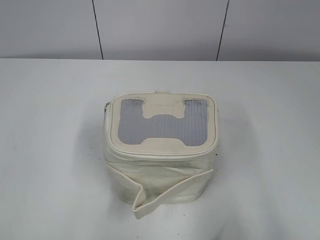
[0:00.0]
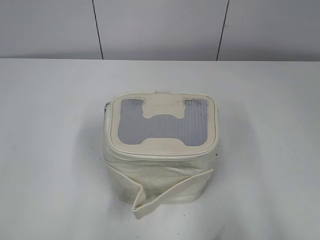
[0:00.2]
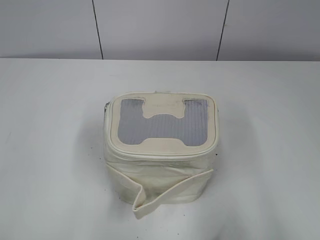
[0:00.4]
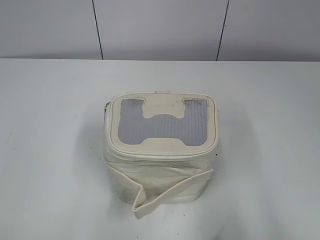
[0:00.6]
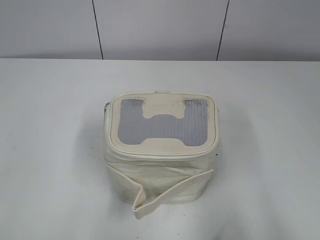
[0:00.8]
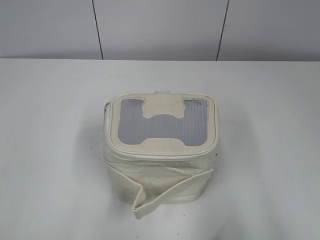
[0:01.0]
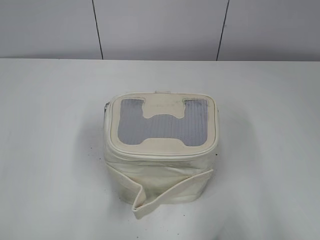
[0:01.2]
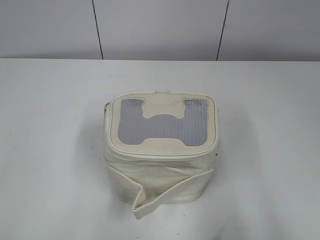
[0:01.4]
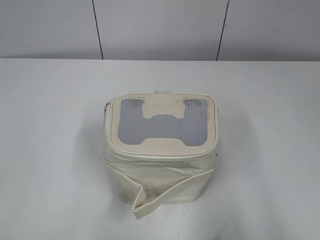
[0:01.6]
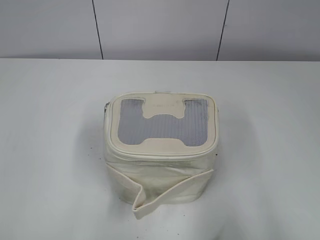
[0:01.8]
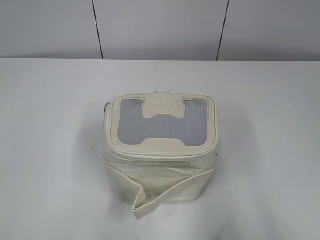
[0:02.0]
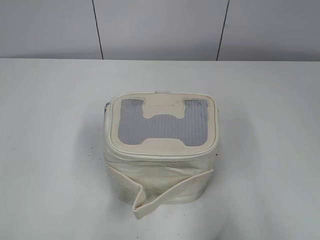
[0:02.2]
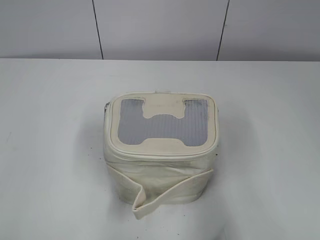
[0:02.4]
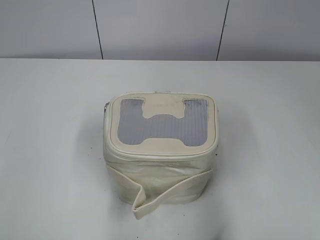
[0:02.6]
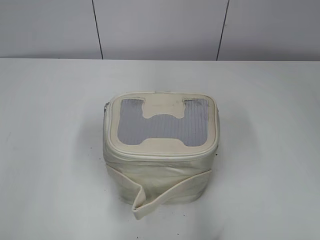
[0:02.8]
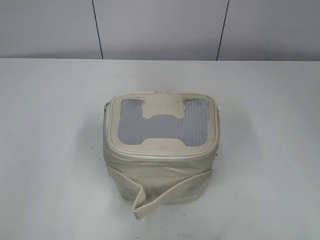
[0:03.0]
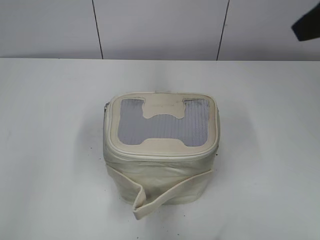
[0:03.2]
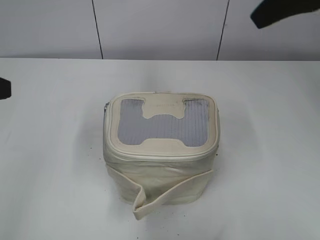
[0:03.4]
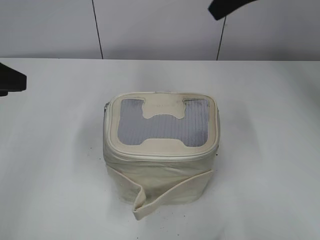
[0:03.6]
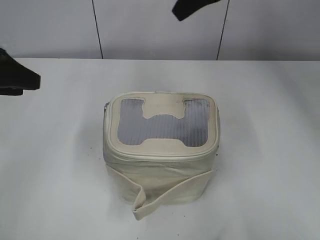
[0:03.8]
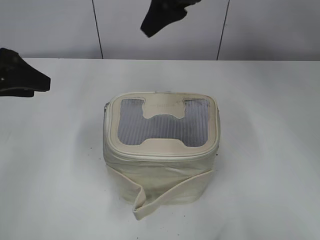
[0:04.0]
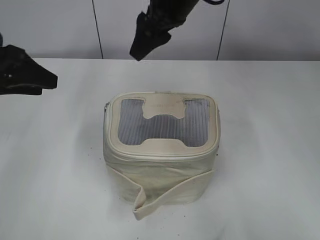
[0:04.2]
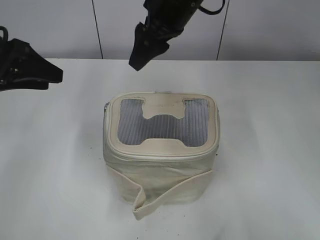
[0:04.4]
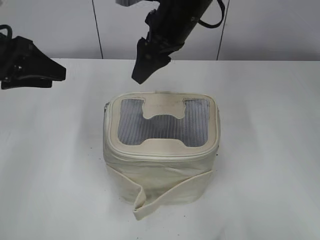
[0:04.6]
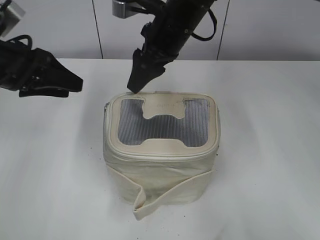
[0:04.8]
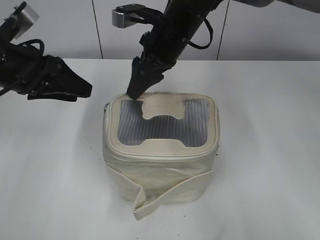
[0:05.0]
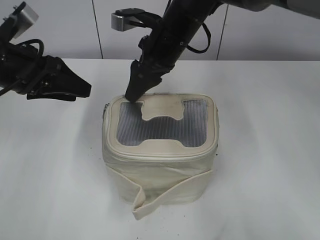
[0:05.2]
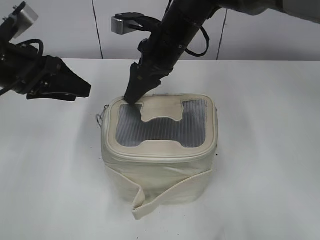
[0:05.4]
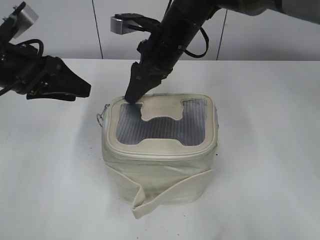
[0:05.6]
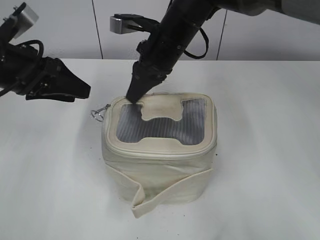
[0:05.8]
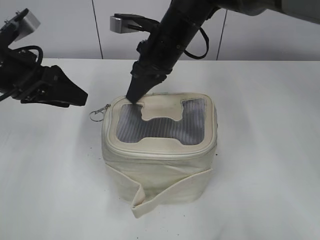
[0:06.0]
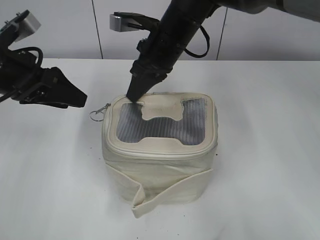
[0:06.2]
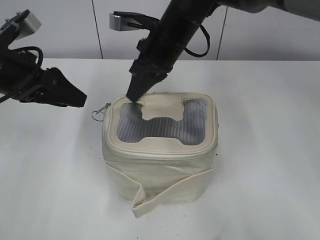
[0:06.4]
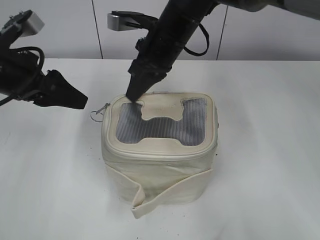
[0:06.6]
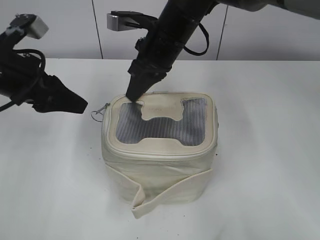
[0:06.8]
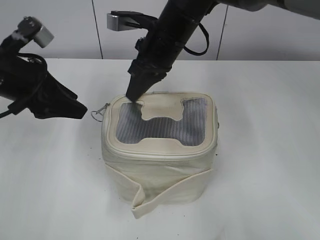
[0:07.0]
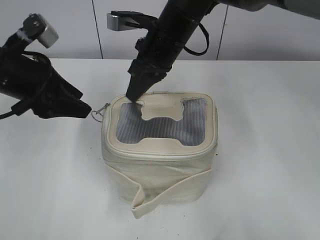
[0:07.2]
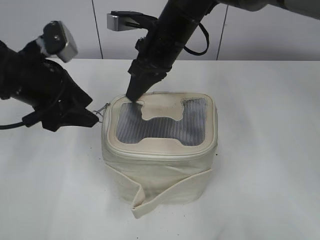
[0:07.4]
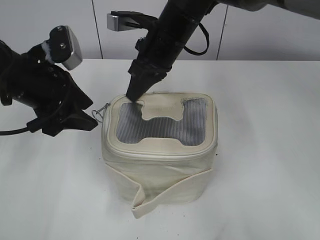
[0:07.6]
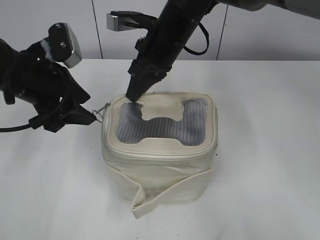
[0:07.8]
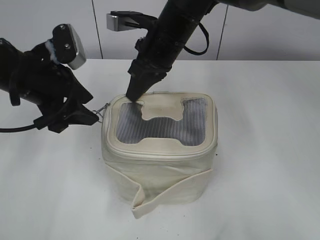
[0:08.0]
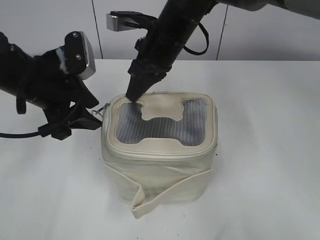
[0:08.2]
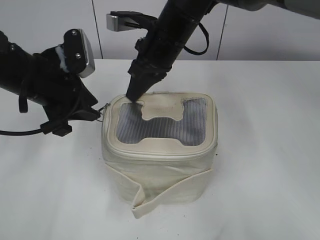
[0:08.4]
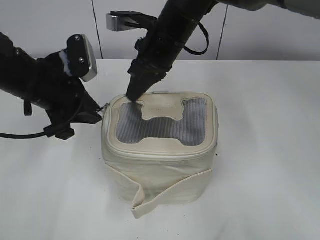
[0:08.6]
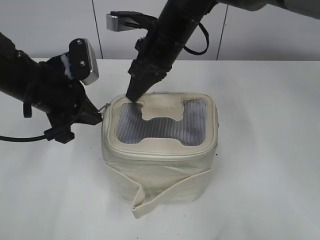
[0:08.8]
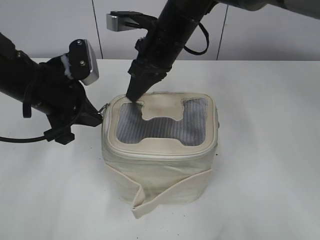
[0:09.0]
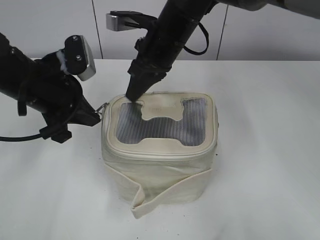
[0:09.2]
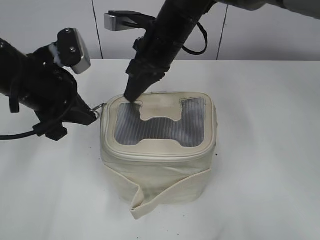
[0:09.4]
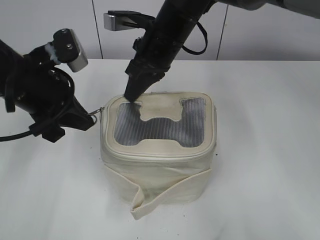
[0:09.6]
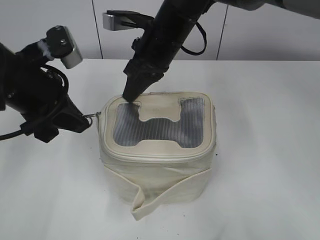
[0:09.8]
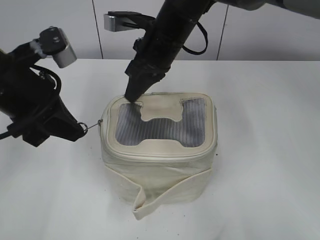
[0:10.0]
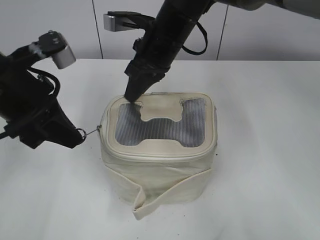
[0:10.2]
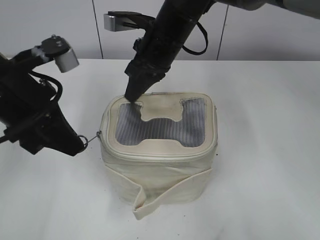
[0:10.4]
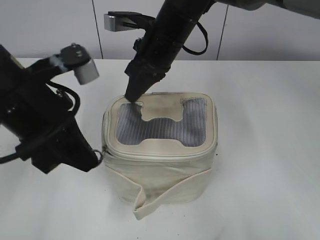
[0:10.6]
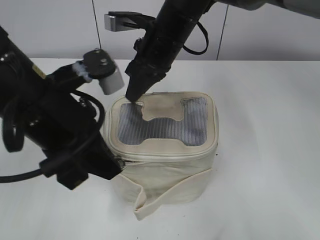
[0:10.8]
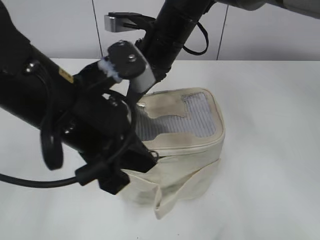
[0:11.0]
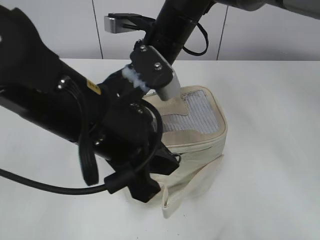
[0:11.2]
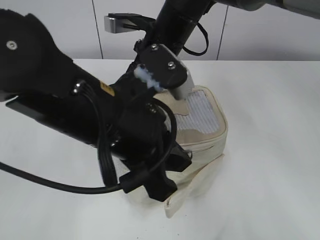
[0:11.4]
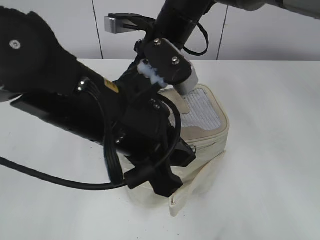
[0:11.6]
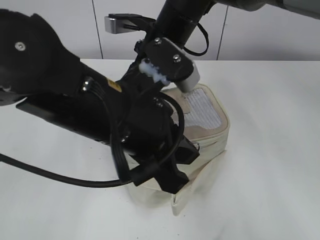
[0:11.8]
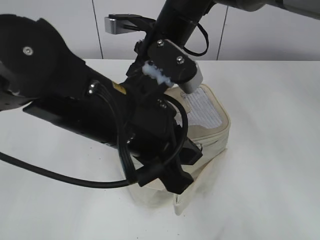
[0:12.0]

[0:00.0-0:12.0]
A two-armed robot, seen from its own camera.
0:01.6 to 0:03.0: The right gripper shifts some 20 cm forward and upward, while the left gripper moves forward, approximately 10 cm.
0:03.0 to 0:04.4: The left gripper moves forward, roughly 20 cm. The right gripper is displaced to the left and forward by about 30 cm.
0:04.4 to 0:06.0: The right gripper moves downward, roughly 10 cm, and closes its fingers.
0:07.6 to 0:09.0: The left gripper closes its fingers.
0:09.0 to 0:10.4: The left gripper goes some 5 cm backward.
0:10.4 to 0:12.0: The left gripper goes approximately 15 cm to the right and backward.

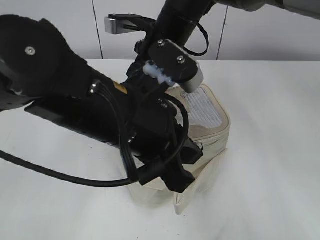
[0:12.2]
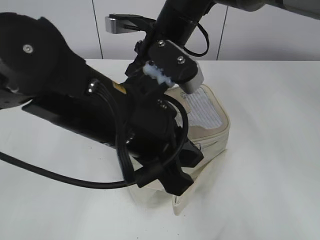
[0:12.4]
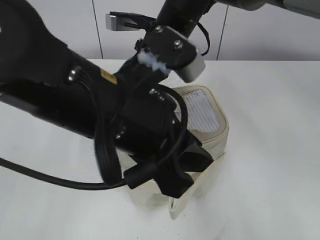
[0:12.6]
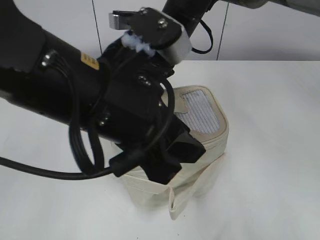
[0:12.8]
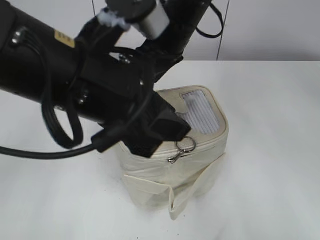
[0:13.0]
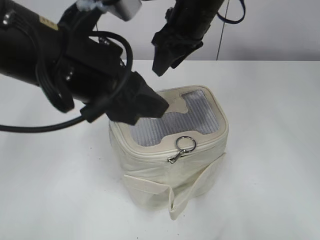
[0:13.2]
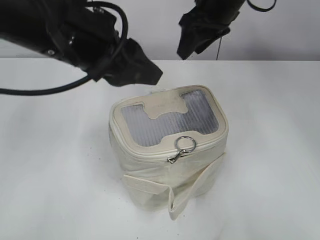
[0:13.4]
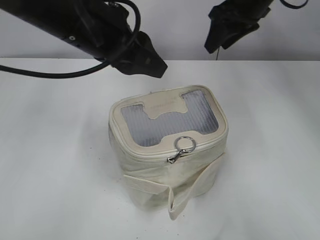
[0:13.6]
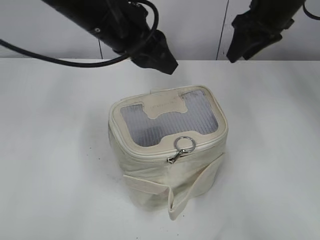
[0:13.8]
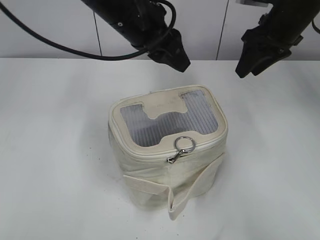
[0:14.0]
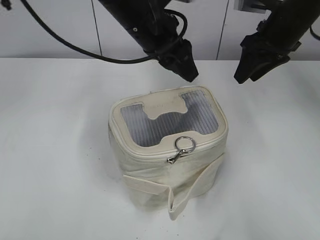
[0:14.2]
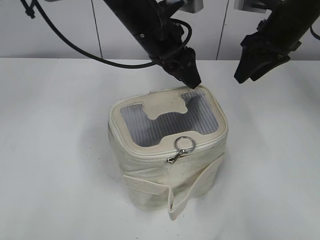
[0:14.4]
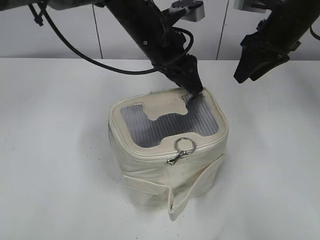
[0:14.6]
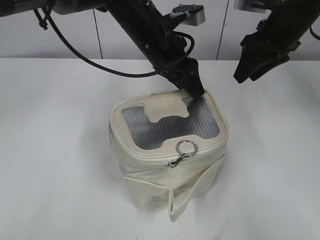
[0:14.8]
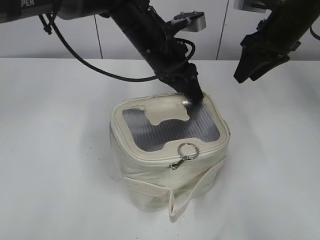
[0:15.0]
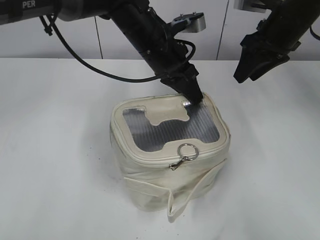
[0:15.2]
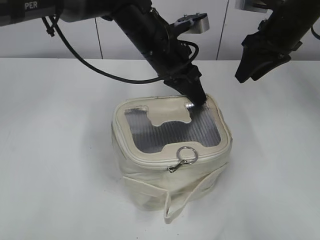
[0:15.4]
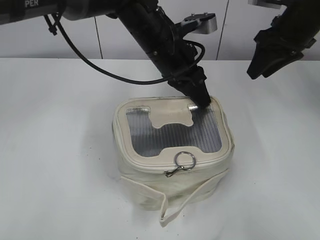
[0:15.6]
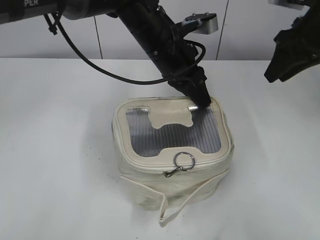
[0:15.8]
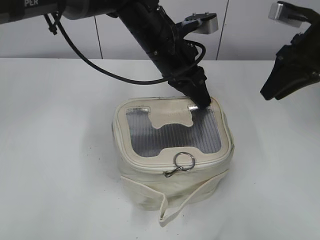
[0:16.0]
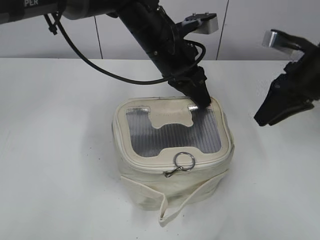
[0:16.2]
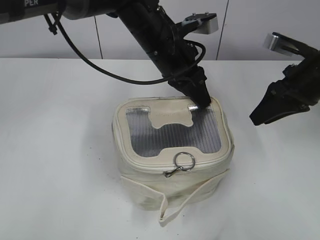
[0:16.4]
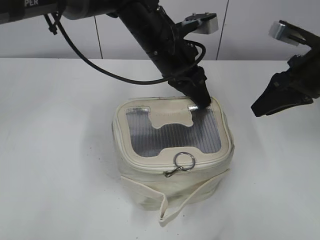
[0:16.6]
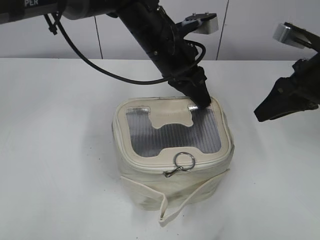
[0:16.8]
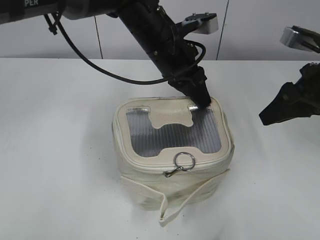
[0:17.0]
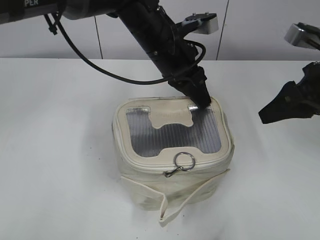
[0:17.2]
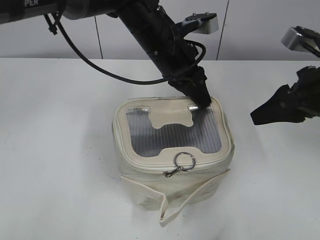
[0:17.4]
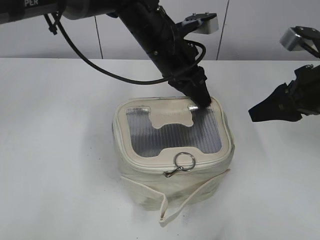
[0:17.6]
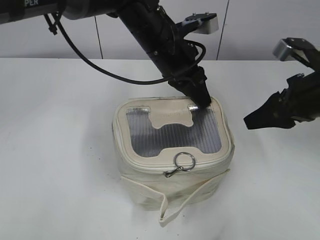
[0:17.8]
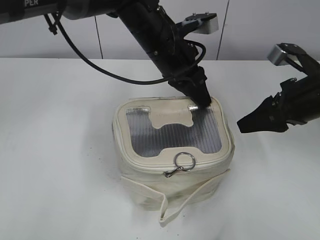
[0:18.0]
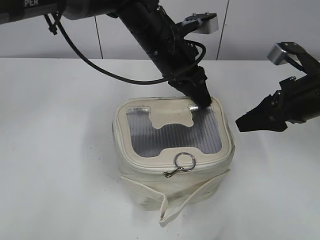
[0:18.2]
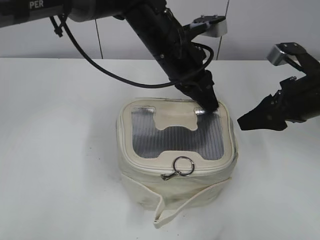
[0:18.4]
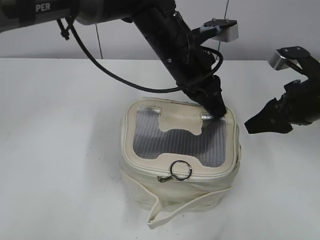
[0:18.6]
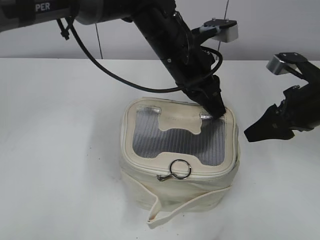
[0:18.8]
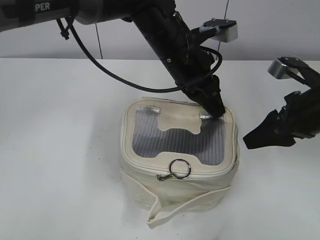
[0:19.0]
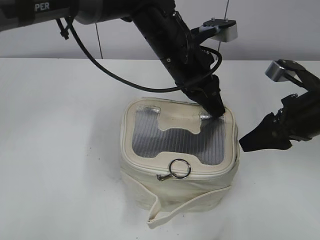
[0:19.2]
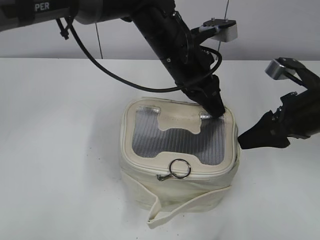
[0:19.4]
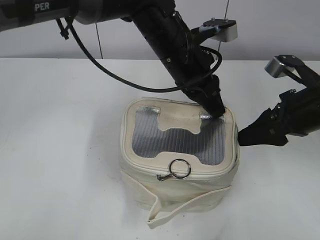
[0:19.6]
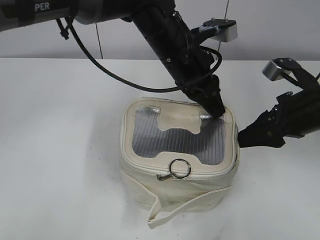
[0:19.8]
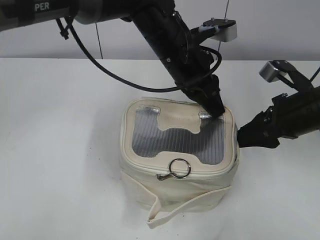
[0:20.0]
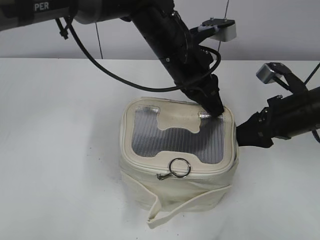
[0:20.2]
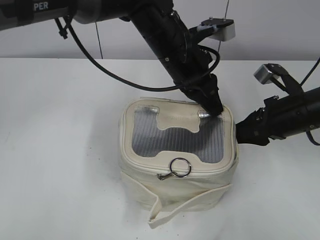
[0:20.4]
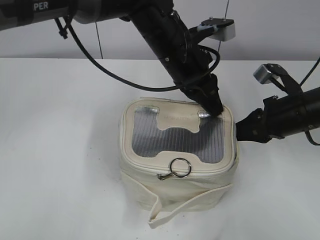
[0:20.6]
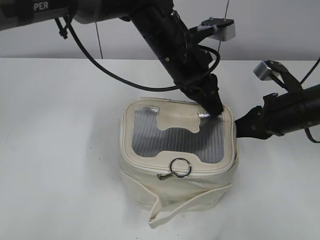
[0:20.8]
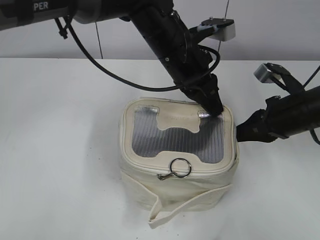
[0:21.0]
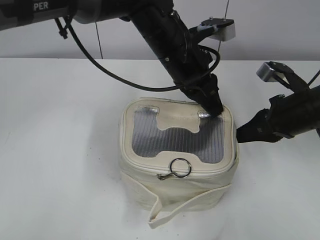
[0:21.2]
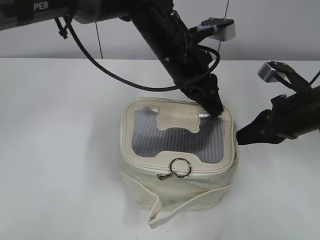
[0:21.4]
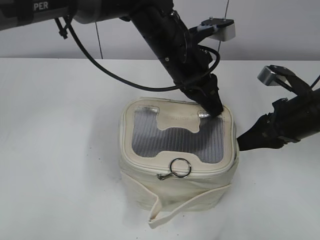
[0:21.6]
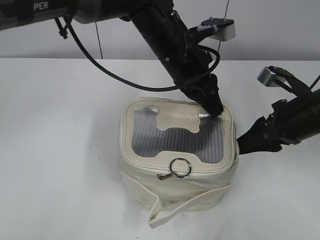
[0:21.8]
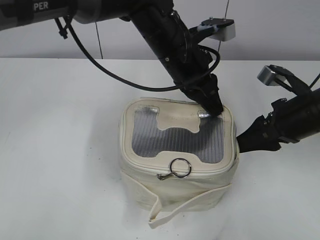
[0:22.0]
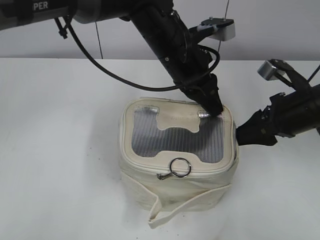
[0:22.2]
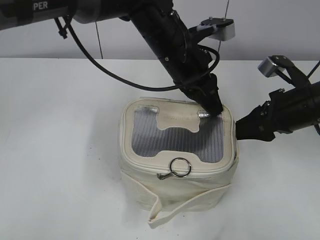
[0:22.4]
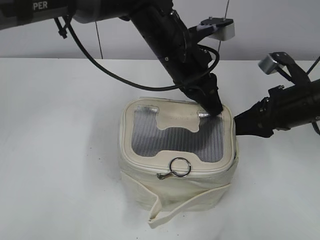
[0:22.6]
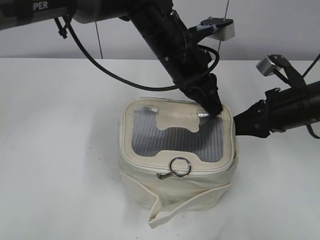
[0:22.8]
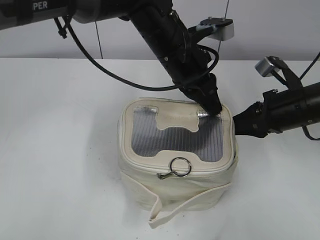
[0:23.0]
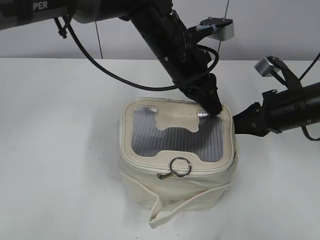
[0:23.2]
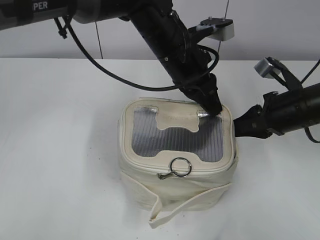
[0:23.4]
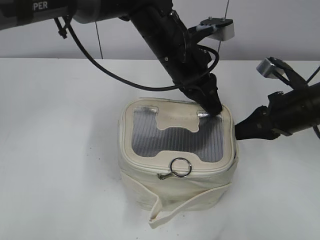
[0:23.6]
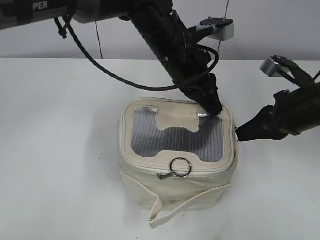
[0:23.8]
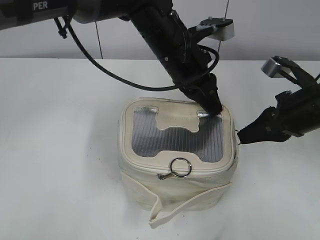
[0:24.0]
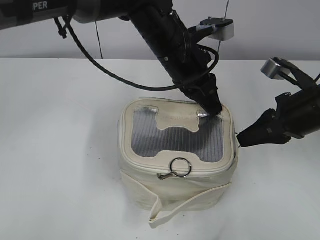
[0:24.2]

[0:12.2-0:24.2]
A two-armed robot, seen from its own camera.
0:12.2 to 0:13.8: The right gripper is displaced to the right by about 20 cm, and opens; the left gripper moves forward and upward, some 15 cm, and opens.
0:13.8 to 0:15.2: The left gripper heads downward, forward and to the right, covering some 10 cm, and closes.
0:15.2 to 0:16.6: The right gripper heads backward, covering about 10 cm.
0:16.6 to 0:18.2: The grippers make only small movements.
0:18.2 to 0:19.8: The grippers stay close to where they were, moving slightly.
0:19.8 to 0:21.2: The right gripper closes its fingers.
0:21.2 to 0:22.6: The right gripper opens.
0:22.6 to 0:24.2: The right gripper closes its fingers.
